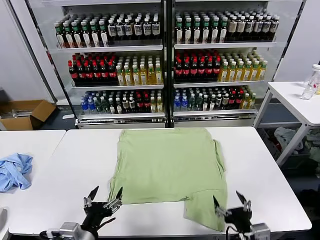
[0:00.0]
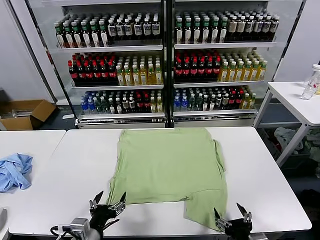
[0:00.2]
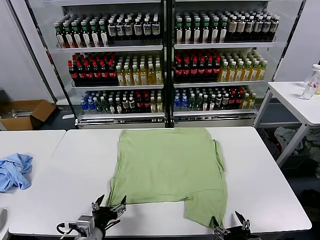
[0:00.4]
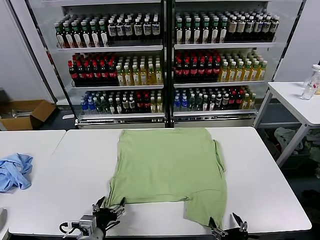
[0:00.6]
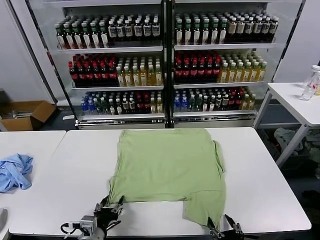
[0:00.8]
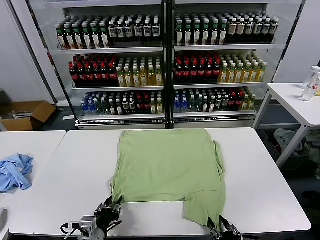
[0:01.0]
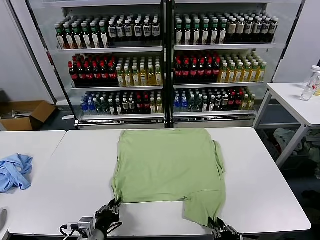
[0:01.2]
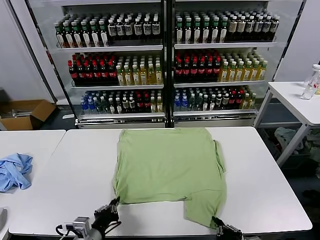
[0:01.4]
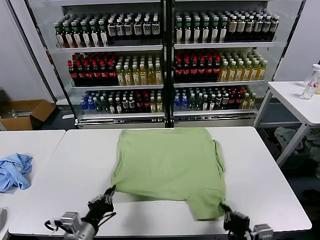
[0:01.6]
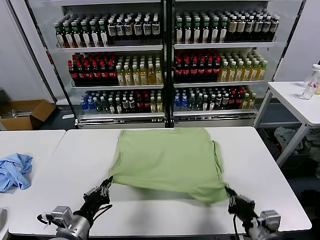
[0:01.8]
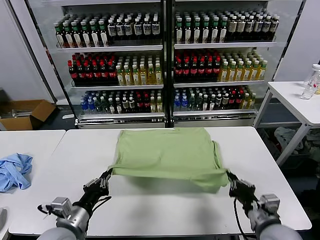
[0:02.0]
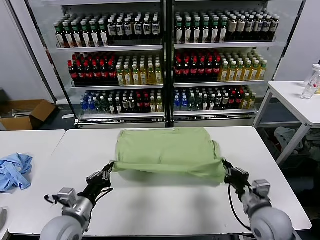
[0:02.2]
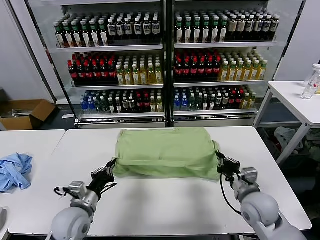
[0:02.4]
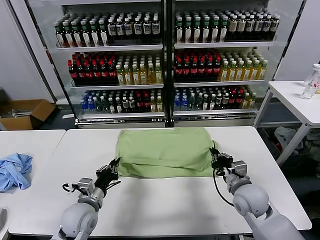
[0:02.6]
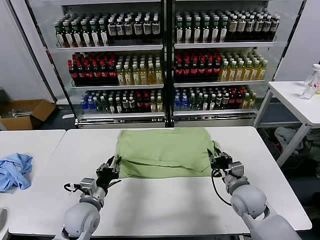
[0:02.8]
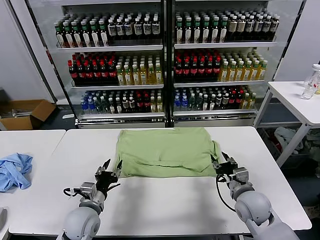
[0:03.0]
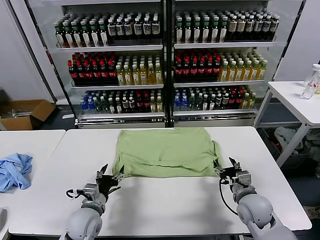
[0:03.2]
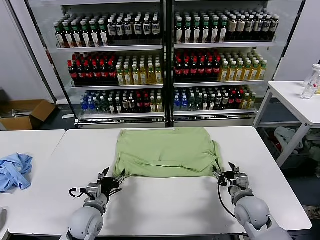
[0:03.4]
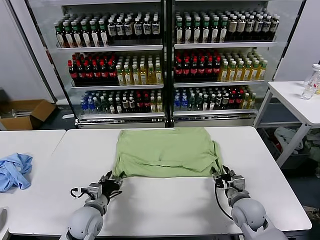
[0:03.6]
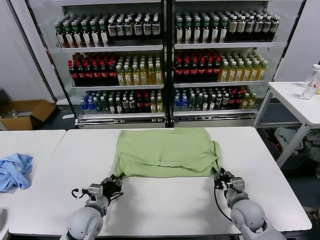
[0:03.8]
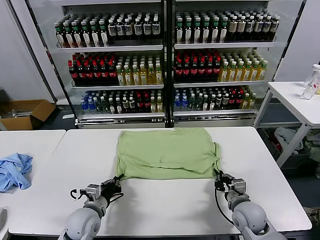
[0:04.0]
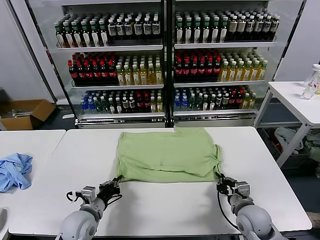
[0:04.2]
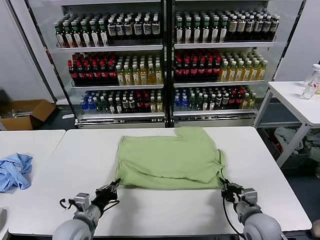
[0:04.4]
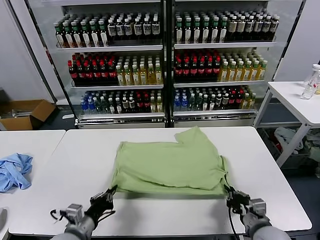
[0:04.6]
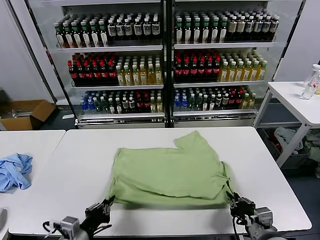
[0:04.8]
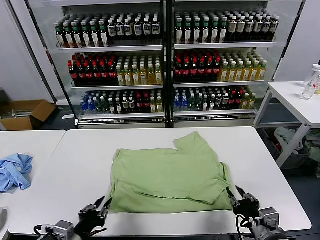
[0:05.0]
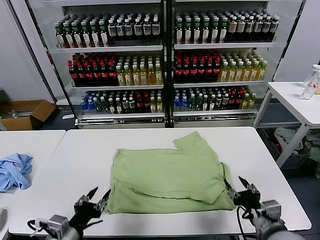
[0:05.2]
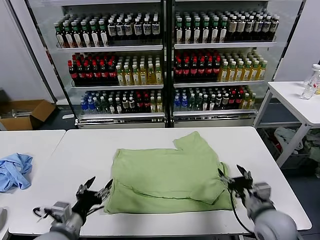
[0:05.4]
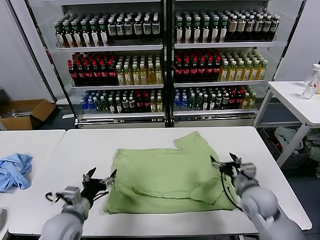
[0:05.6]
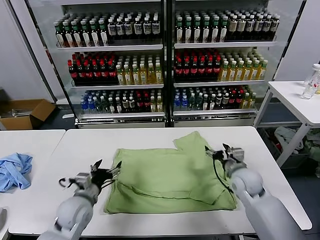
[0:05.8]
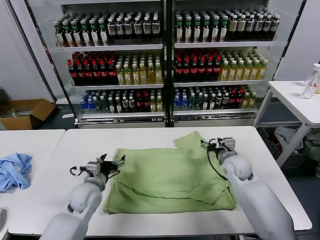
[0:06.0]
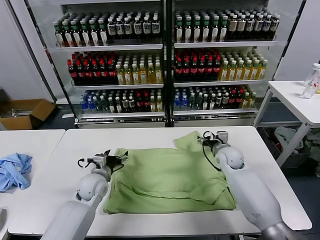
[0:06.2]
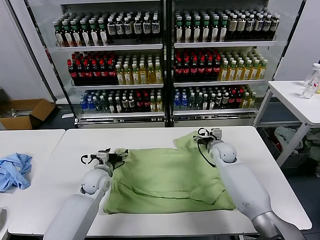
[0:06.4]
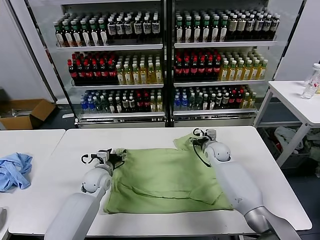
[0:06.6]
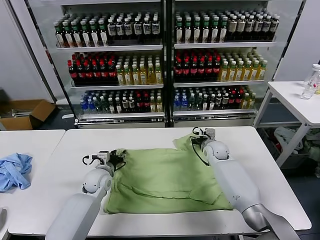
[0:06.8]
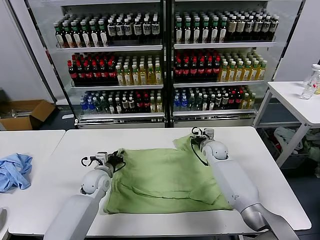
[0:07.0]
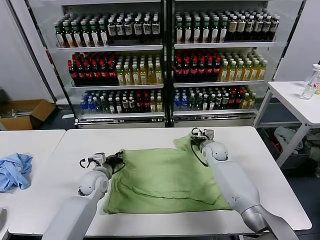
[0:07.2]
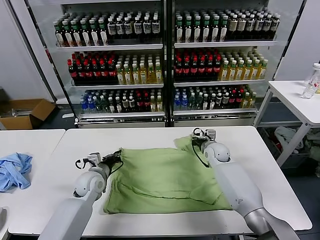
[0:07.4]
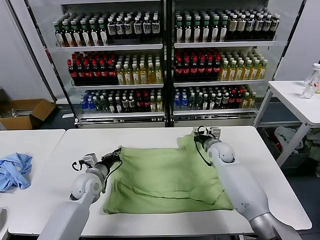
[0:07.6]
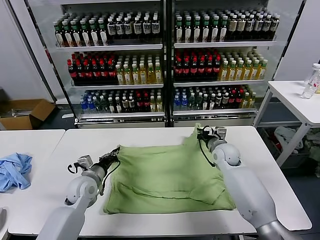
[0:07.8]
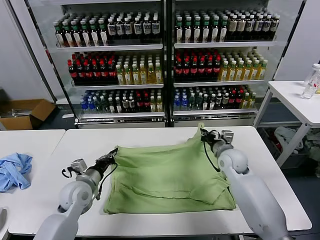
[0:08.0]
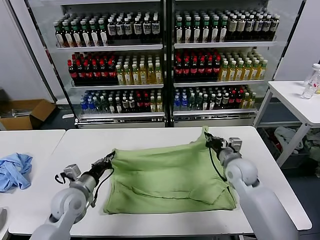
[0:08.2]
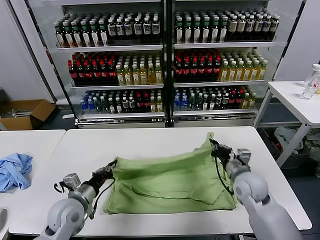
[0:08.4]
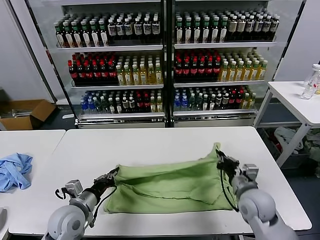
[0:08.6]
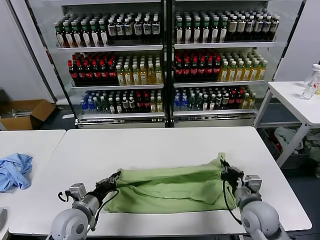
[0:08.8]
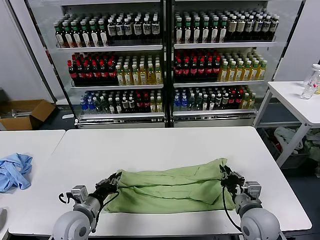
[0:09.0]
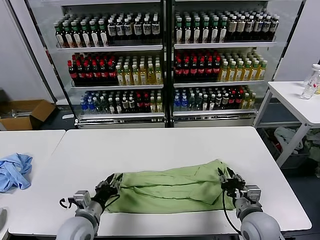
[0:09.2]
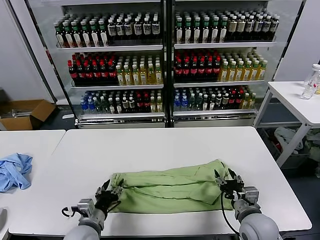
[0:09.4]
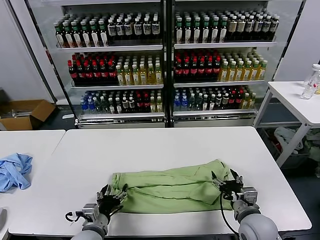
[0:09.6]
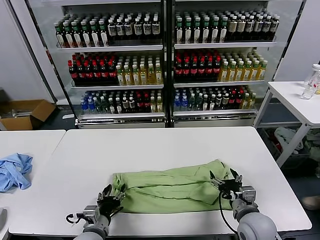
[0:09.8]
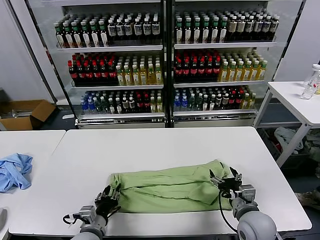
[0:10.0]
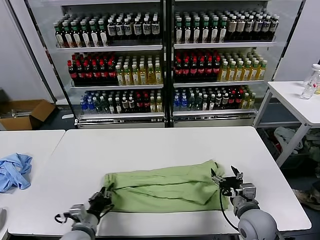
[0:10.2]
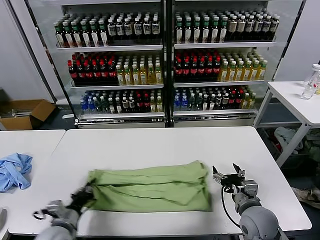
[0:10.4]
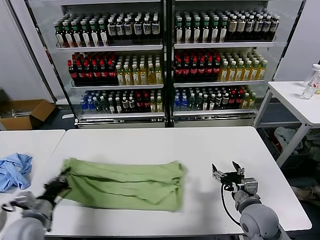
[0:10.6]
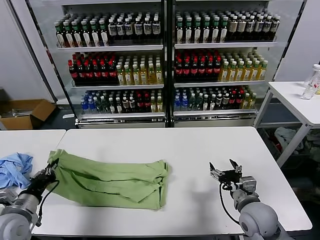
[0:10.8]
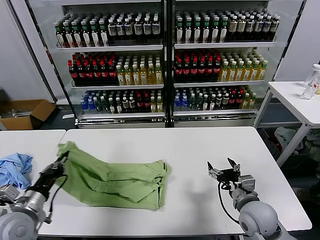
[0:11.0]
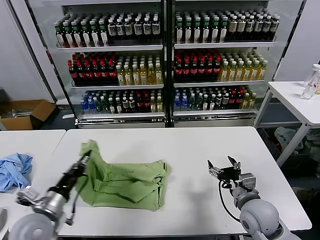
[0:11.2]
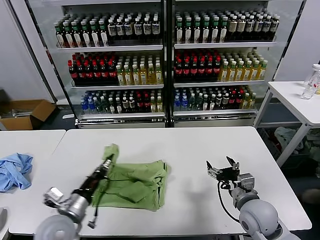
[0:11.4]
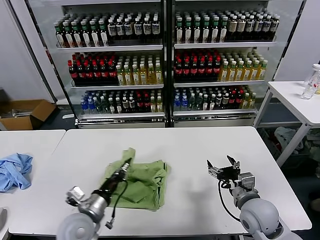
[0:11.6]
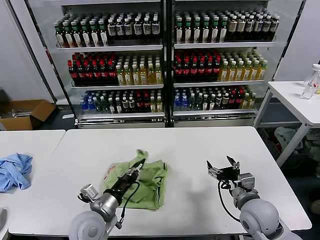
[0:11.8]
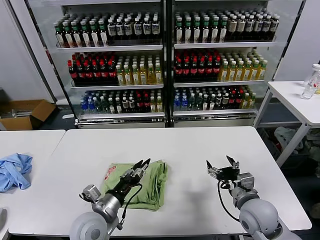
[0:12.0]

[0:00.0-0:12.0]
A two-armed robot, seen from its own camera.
Task of the whole recording: fold and organize the clothes.
Step, 0:00.0 to 0:01.2: use both grippers simultaneously to clamp the lower edge of the clothing fabric.
Step, 0:01.6 to 0:02.8: use both grippers to drag the lower edge of the fabric forward and fold it over the upper edge.
Step, 0:03.0 to 0:05.0: Drag the clothes downward with both gripper.
Step, 0:05.2 to 0:07.2: use both grippers simultaneously to clamp the upper edge of the clothing fabric.
Step, 0:07.4 to 0:09.2: use both grippers to drag the upper edge of the fabric backward and fold it over the lower edge.
Step, 0:09.4 to 0:10.0: use the left gripper to clamp the left edge of the fabric.
Step, 0:10.2 to 0:11.8: use the left gripper to drag the left edge of the fabric to the left and folds it over the right edge.
0:01.6 to 0:03.0: The two grippers go some 15 cm forward. The right gripper opens. Meanwhile the left gripper opens its fingers.
0:03.0 to 0:04.4: The left gripper closes. Meanwhile the right gripper is displaced backward by approximately 10 cm, and closes up.
0:04.4 to 0:06.0: The right gripper heads forward, covering approximately 25 cm, and opens its fingers; the left gripper is displaced forward by about 10 cm, and opens its fingers.
0:06.0 to 0:07.6: The left gripper closes, while the right gripper closes.
0:07.6 to 0:09.0: The left gripper is displaced backward by approximately 15 cm. The right gripper goes approximately 25 cm backward.
0:09.0 to 0:10.4: The left gripper travels to the left by some 5 cm, and opens, then closes again. Meanwhile the right gripper opens its fingers.
0:10.4 to 0:12.0: The left gripper moves to the right and upward, about 15 cm, and opens up.

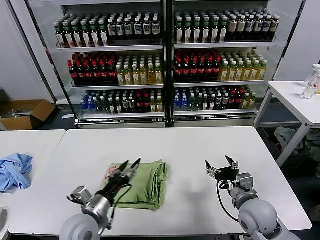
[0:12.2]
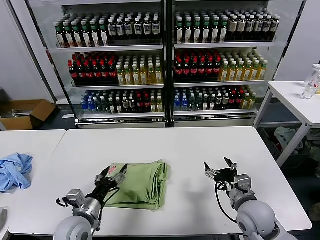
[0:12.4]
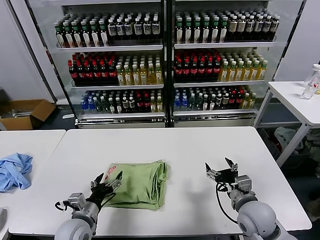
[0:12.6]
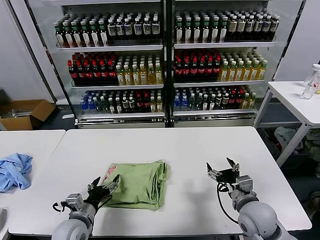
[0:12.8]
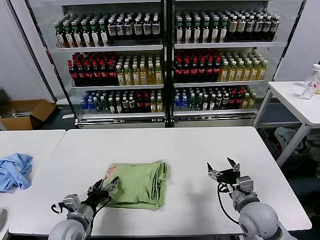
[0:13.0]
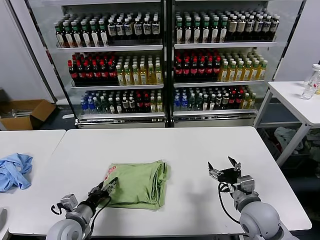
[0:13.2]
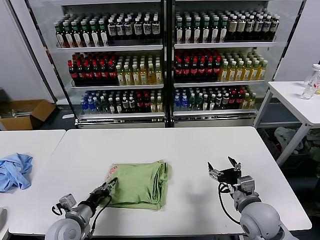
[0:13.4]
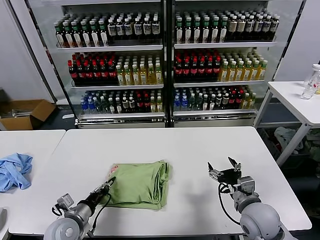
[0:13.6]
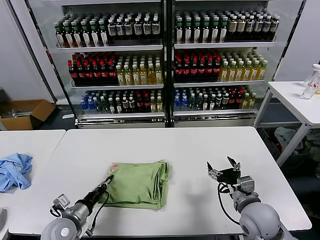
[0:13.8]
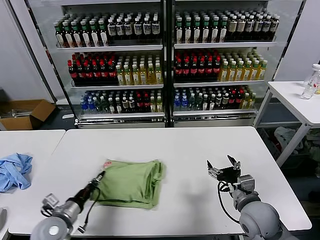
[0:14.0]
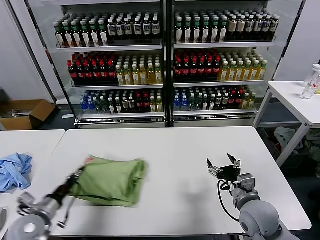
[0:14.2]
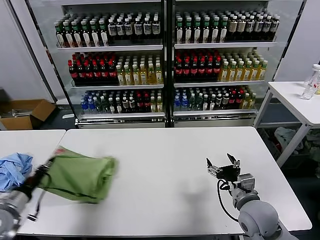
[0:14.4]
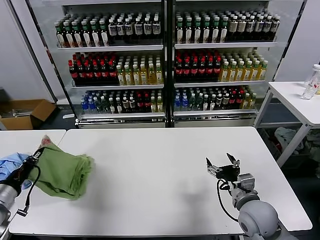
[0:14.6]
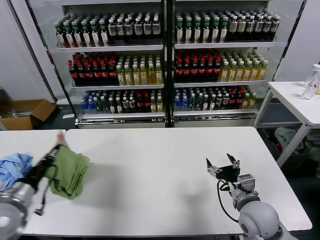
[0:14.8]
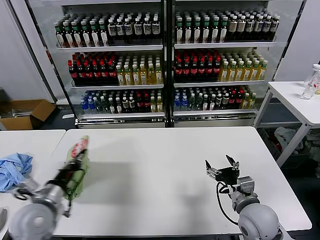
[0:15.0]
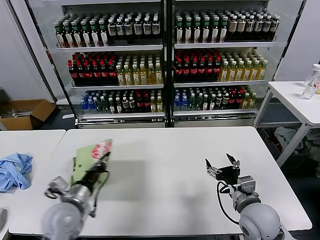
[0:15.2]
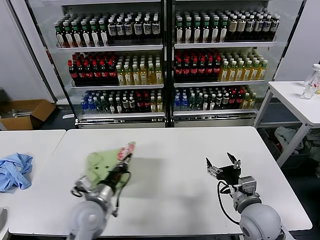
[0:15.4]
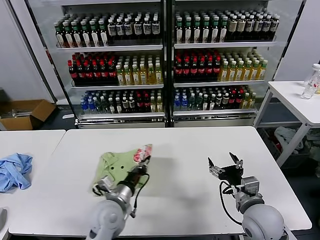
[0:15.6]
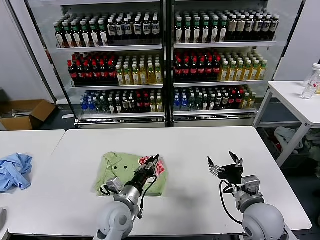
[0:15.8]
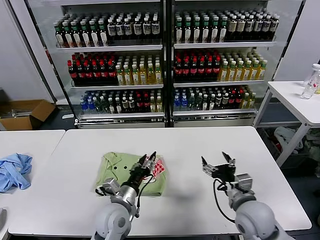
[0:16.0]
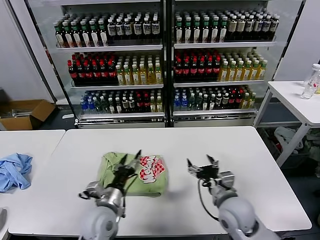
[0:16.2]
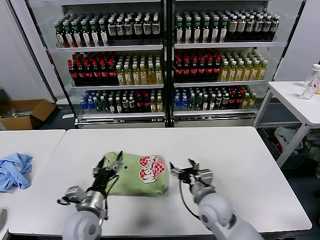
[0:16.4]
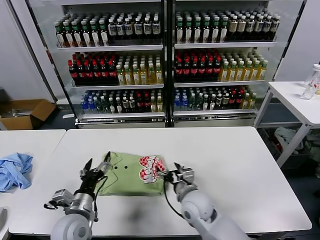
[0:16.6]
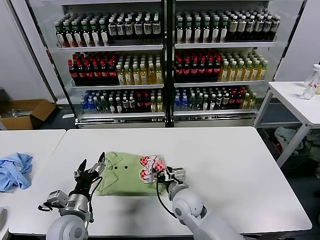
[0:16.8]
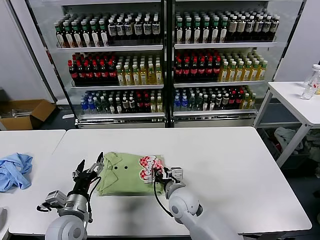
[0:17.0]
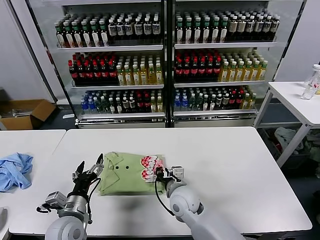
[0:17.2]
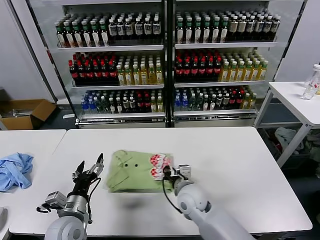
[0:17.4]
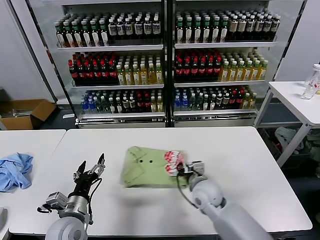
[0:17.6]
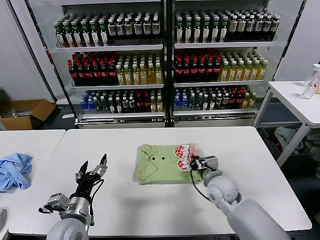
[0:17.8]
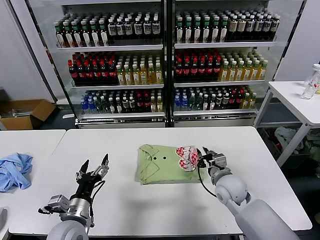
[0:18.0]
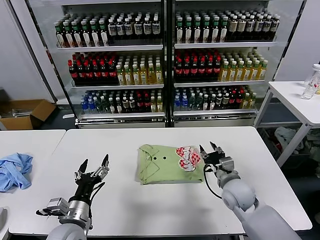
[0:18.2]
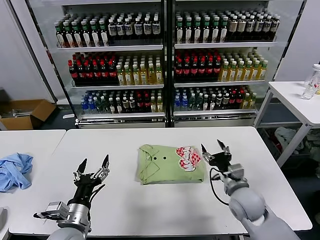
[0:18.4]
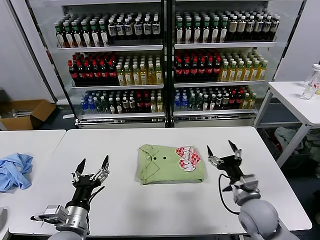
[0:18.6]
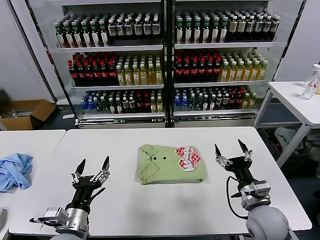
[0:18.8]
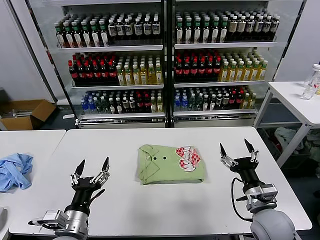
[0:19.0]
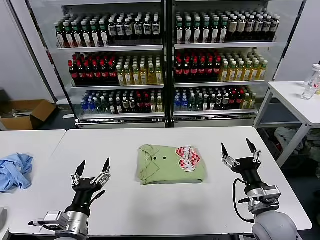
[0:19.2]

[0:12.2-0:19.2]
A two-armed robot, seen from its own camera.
Task of the whole recording: fold and organize the clothes.
Step, 0:12.2 to 0:15.8: Flip the folded clothes over with left gripper.
Step, 0:16.0 to 0:18.0: Drag the clothes to the center of the table.
0:12.2 to 0:13.6: The left gripper heads to the left and downward, covering about 10 cm, and closes up.
0:13.6 to 0:15.0: The left gripper travels upward by roughly 10 cm, and reaches some 15 cm to the left, then returns.
0:15.0 to 0:16.4: The left gripper shifts some 15 cm to the right and downward, and opens up. Meanwhile the right gripper goes about 10 cm to the left.
0:16.4 to 0:17.8: The right gripper shifts roughly 5 cm forward, travels to the left and back again, approximately 10 cm each way, and closes.
0:17.8 to 0:19.2: The right gripper is displaced backward and to the right by some 15 cm, and opens. Meanwhile the left gripper shifts approximately 5 cm backward.

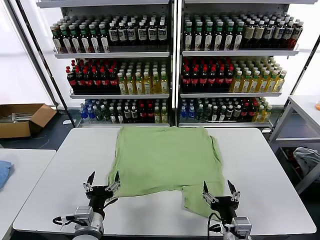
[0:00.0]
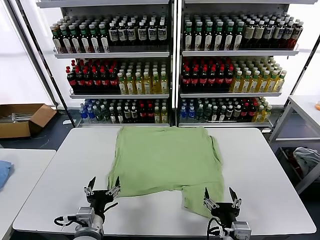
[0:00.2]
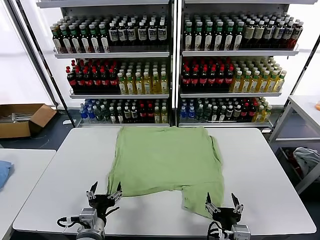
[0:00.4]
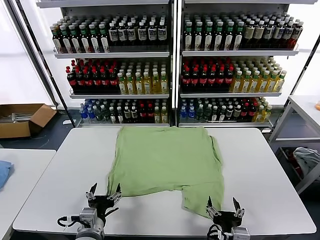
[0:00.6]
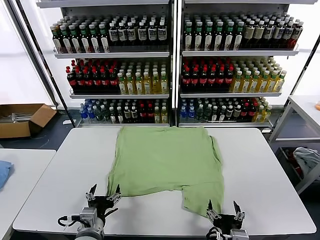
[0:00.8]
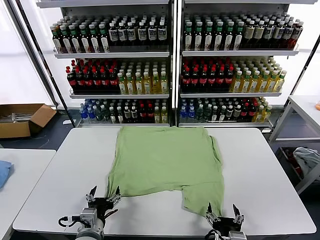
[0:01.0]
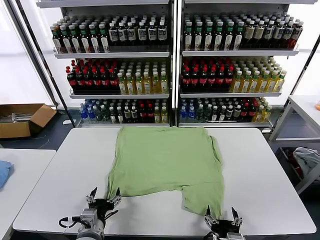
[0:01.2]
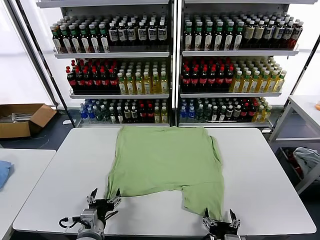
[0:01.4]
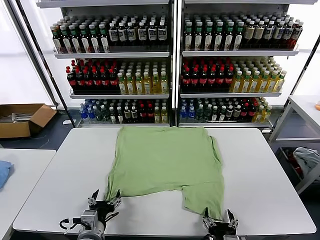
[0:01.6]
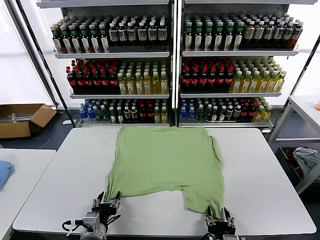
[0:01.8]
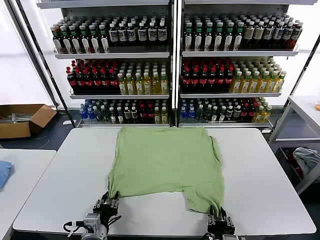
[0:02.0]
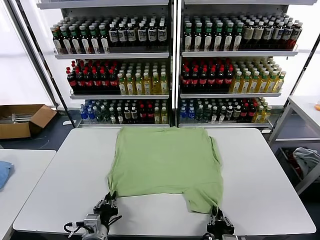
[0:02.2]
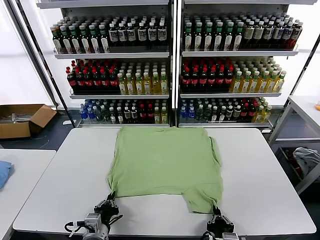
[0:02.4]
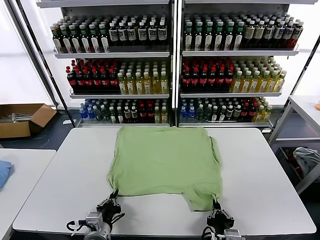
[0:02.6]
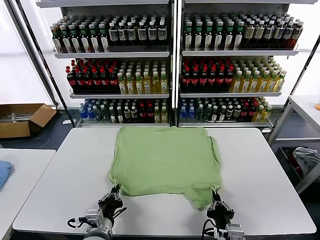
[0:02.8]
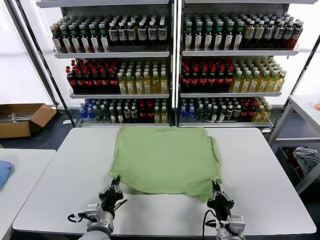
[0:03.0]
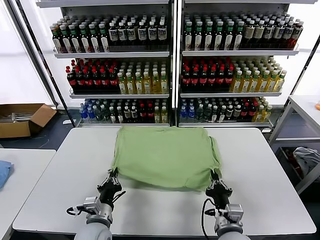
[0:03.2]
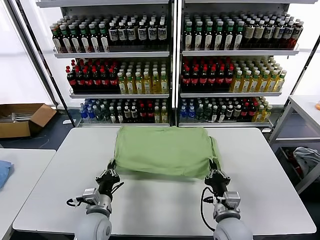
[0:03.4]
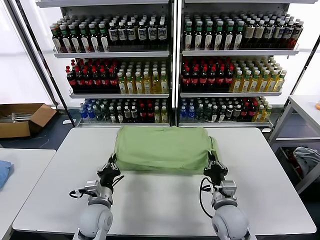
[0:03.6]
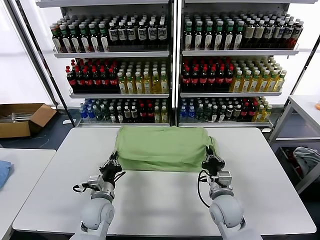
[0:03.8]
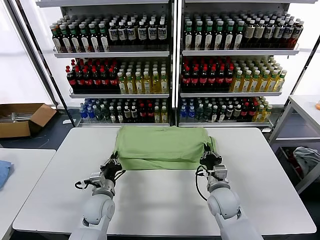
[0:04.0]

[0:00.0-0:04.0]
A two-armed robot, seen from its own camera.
Task of the whole recording: fold and organize the clothes.
Step, 0:00.0 to 0:02.4: use both grippers simultaneously to clamp the lower edge of the clothing fabric.
0:01.4 to 0:02.6: The left gripper closes; the right gripper closes.
0:02.6 to 0:04.0: Both grippers move forward, approximately 20 cm.
